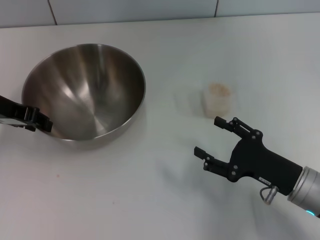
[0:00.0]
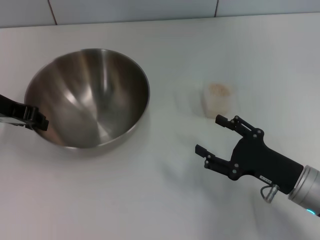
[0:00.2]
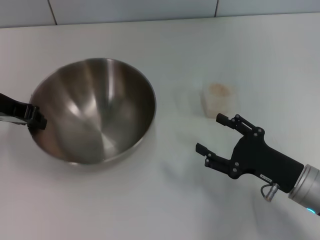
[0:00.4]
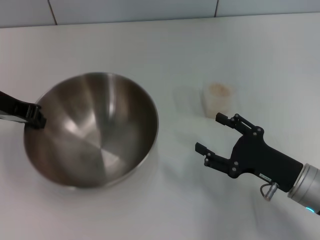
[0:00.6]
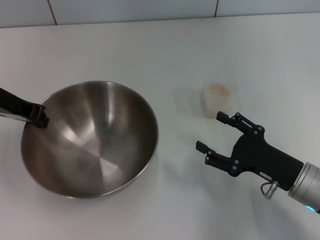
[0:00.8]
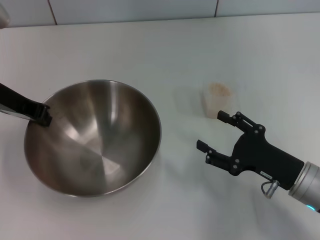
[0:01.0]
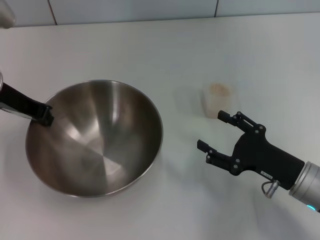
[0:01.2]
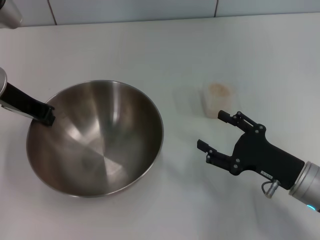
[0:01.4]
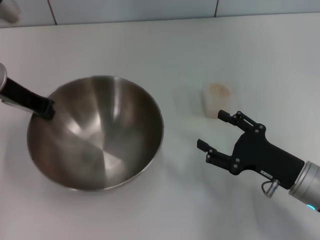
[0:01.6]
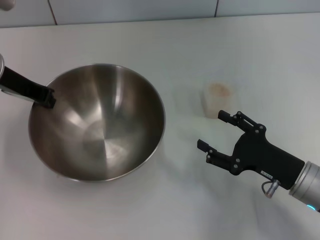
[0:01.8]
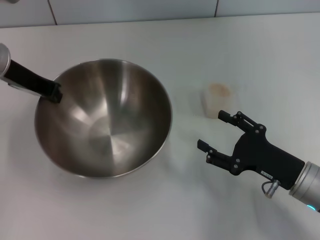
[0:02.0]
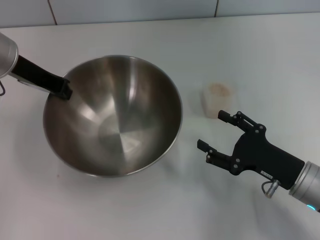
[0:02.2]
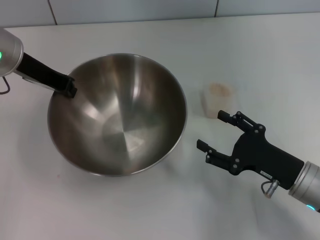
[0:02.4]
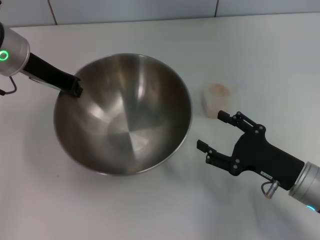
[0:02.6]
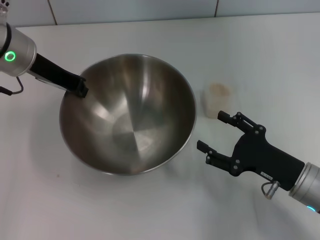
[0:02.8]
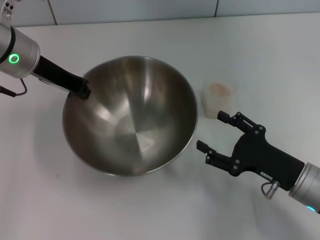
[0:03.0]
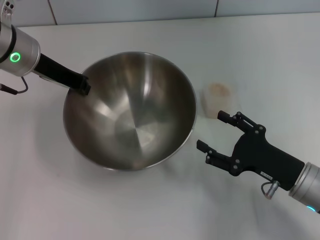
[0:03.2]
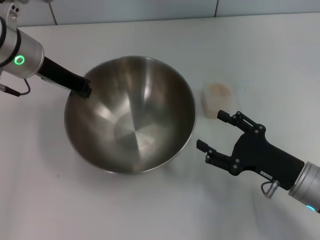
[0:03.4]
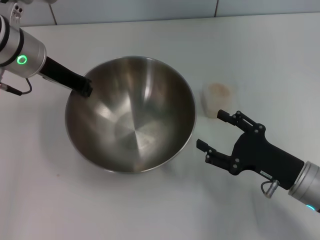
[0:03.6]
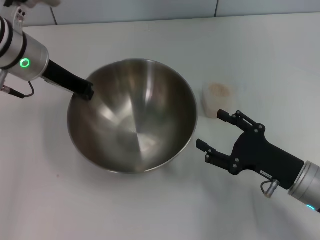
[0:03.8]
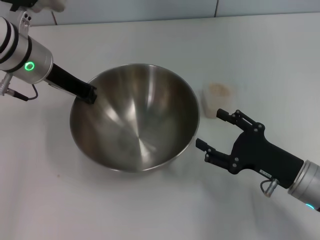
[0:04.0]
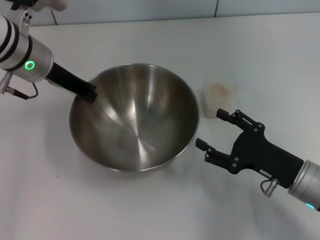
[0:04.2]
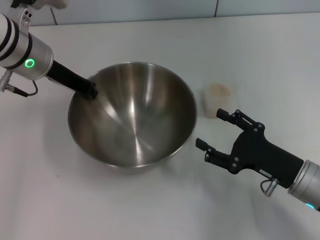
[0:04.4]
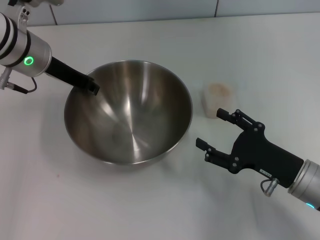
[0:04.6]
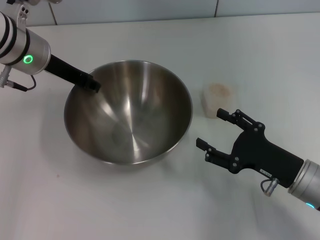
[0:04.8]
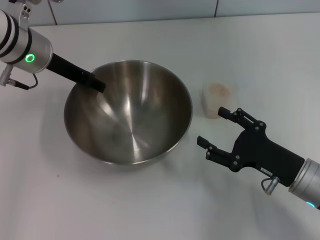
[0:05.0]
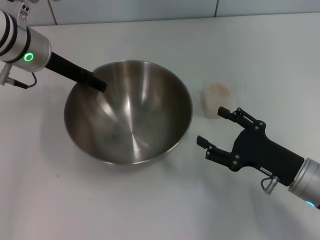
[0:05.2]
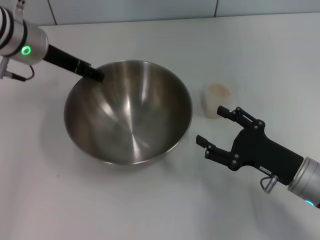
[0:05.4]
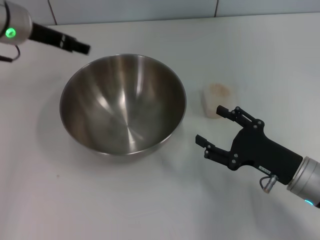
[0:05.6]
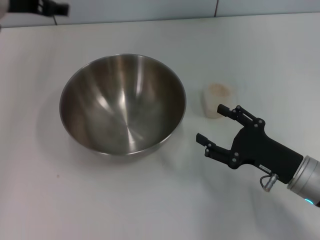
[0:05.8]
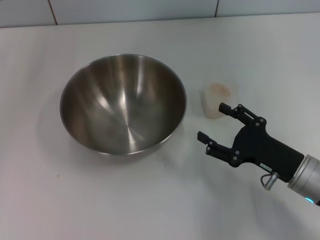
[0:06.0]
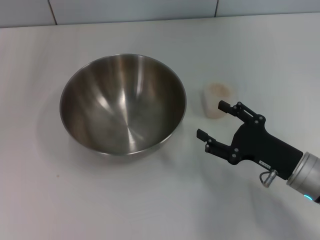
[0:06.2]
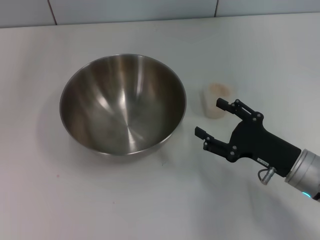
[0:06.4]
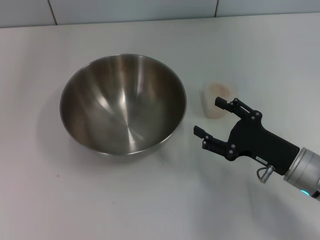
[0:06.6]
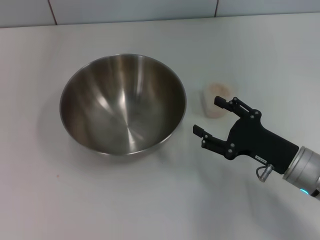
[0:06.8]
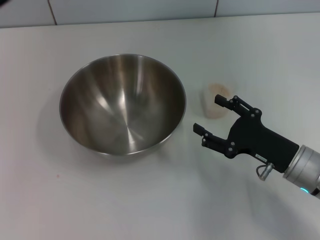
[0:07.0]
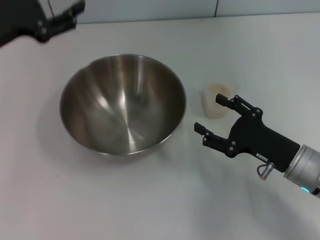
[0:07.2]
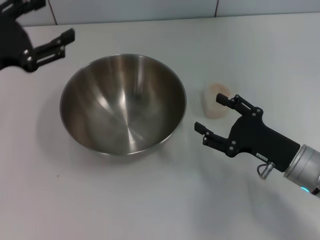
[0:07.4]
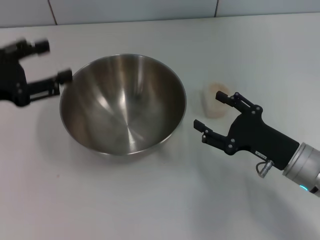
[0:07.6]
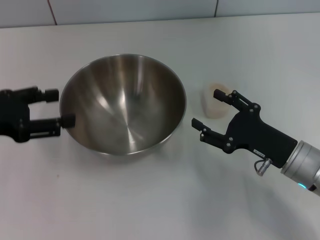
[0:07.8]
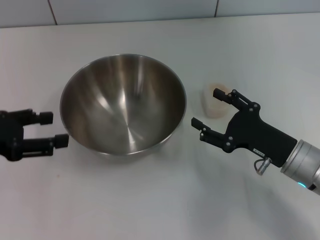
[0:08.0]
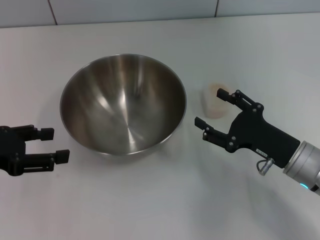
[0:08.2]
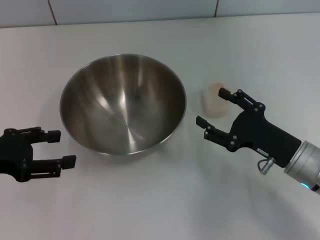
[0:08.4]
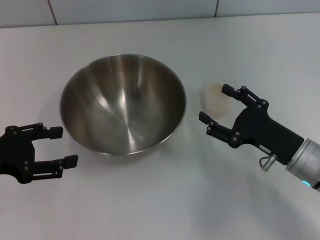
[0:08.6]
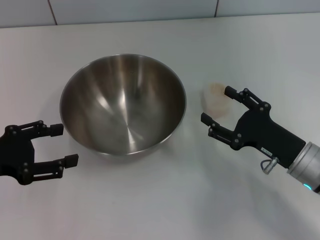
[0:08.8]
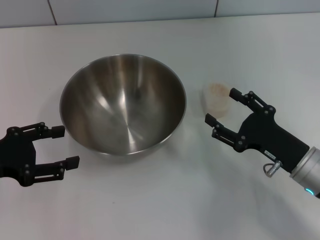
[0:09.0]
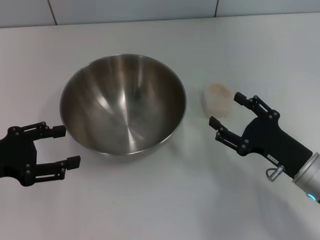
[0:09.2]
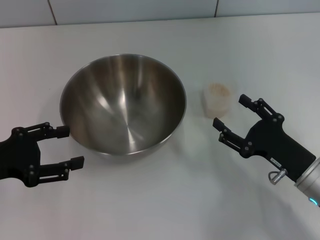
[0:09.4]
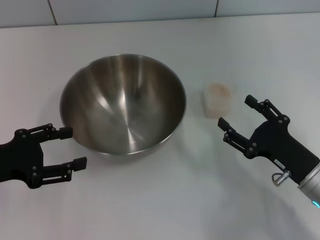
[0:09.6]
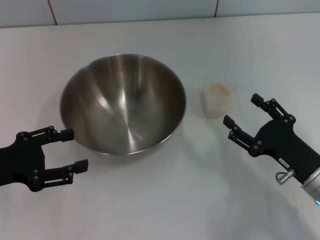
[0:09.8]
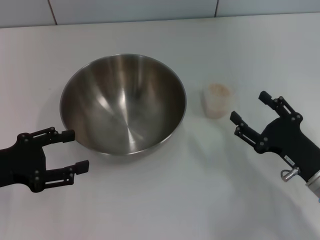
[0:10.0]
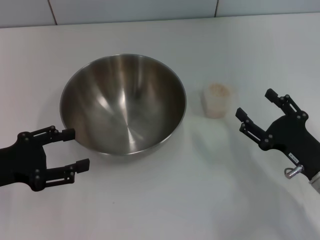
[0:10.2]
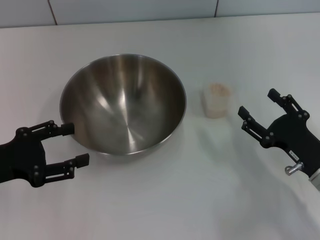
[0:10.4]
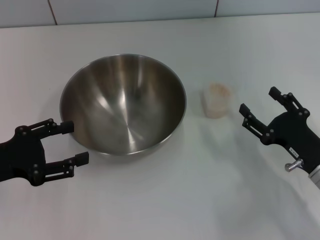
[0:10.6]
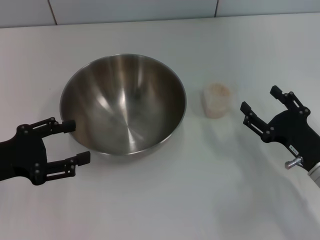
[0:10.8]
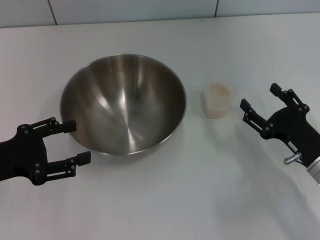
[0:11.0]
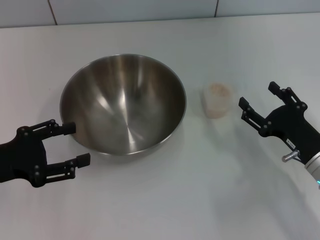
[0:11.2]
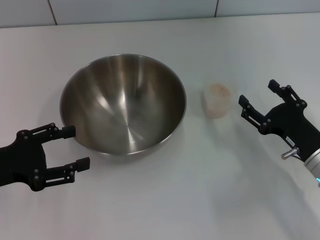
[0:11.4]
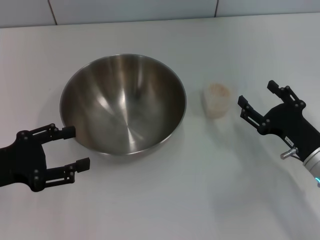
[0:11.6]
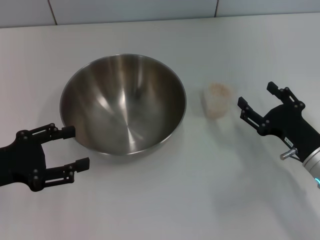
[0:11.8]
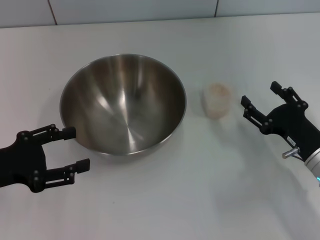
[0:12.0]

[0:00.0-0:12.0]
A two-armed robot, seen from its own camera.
Task of the whole recording: Place the bowl in the middle of the table with one hand and pour the rice from the grain cup into it with the other hand.
Step, 0:00.0 to 0:02.0: Pick up the bowl with the left gripper.
Step, 0:02.2 to 0:05.6: Place the bowl in the center of view with the left gripper.
0:00.0 to 0:01.6: The left gripper closes up.
0:03.0 to 0:04.4: The grippers move only a little.
0:04.4 to 0:06.0: The left gripper goes approximately 5 cm to the left, and opens up.
0:06.0 to 0:07.6: The left gripper travels backward, to the left and downward by some 15 cm.
0:07.6 to 0:09.0: The left gripper changes place by some 5 cm.
0:09.0 to 0:12.0: The grippers make only small movements.

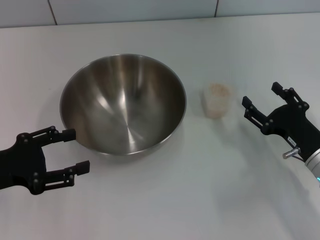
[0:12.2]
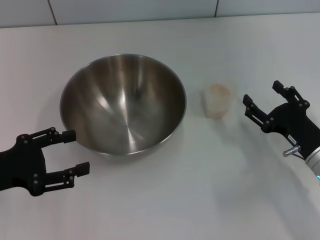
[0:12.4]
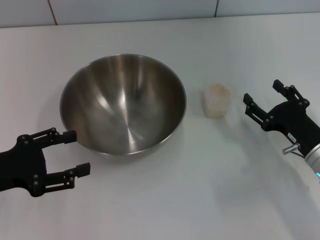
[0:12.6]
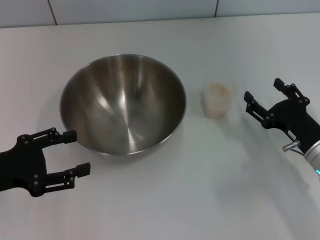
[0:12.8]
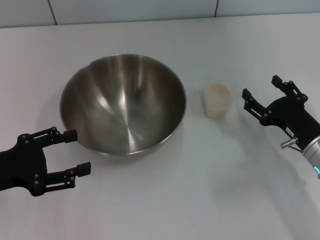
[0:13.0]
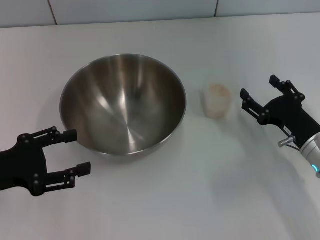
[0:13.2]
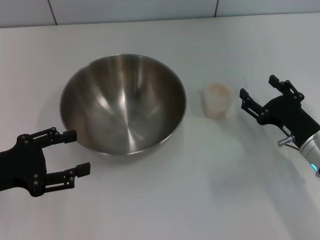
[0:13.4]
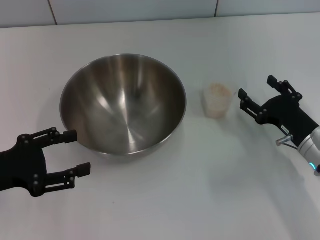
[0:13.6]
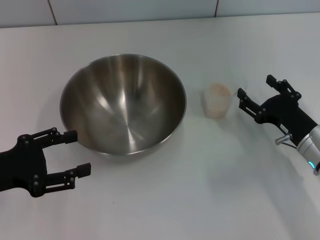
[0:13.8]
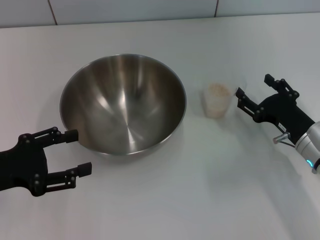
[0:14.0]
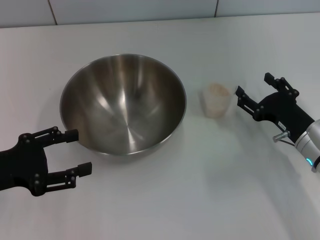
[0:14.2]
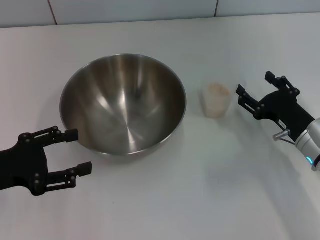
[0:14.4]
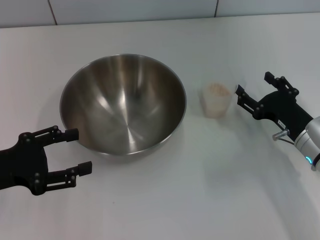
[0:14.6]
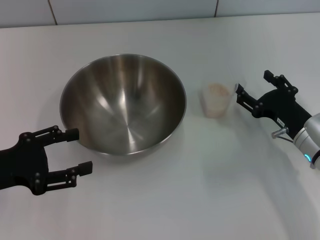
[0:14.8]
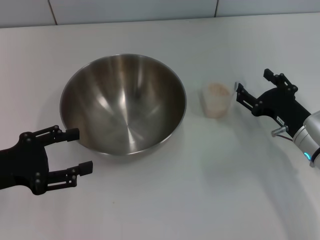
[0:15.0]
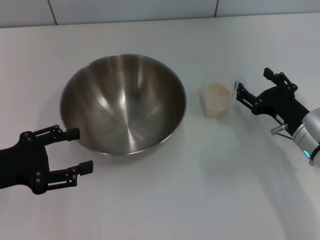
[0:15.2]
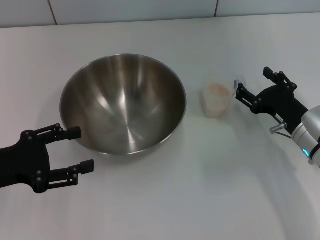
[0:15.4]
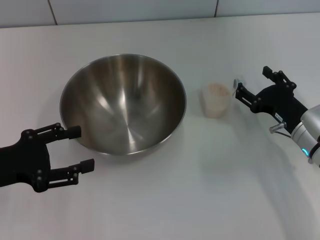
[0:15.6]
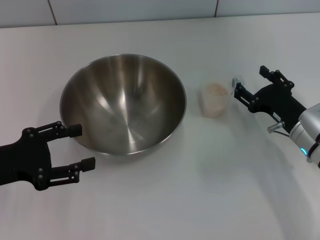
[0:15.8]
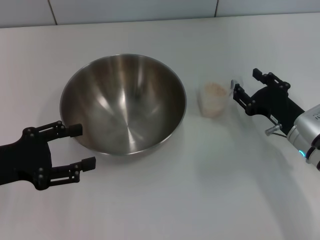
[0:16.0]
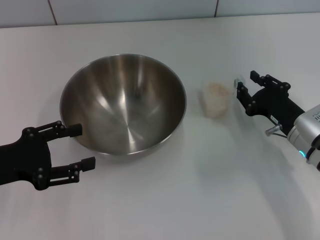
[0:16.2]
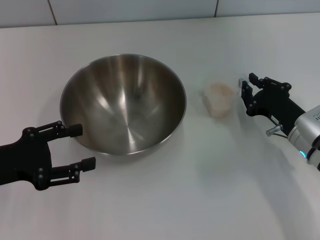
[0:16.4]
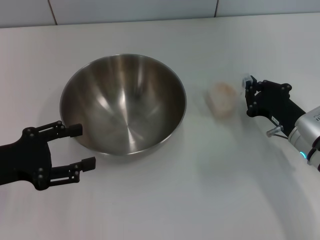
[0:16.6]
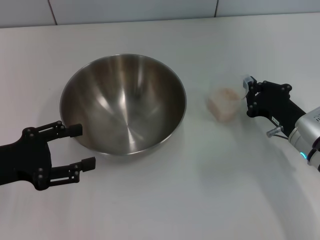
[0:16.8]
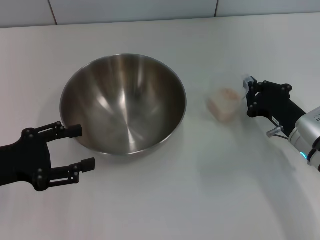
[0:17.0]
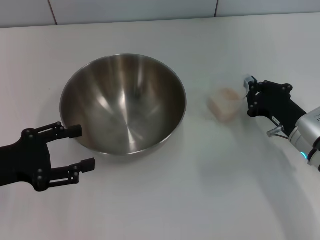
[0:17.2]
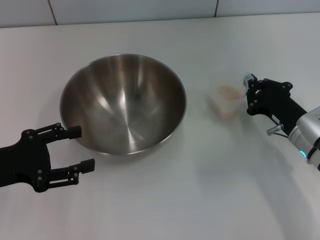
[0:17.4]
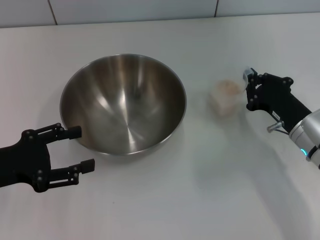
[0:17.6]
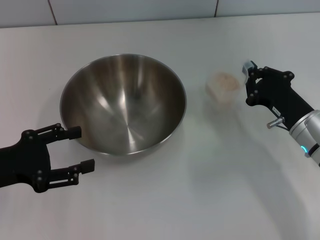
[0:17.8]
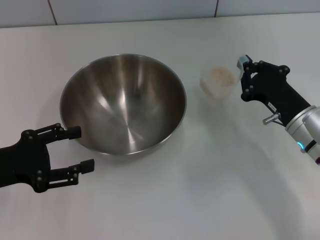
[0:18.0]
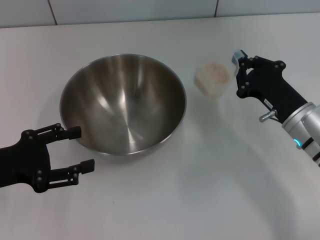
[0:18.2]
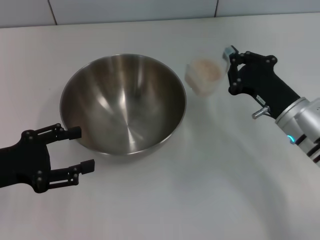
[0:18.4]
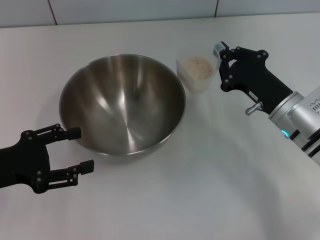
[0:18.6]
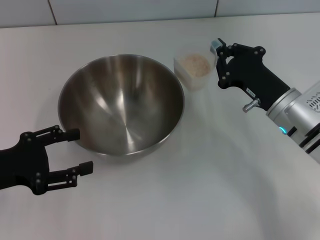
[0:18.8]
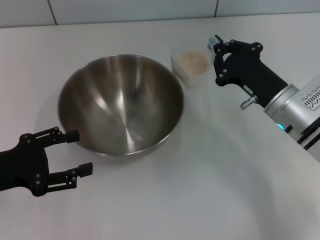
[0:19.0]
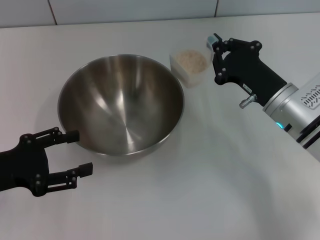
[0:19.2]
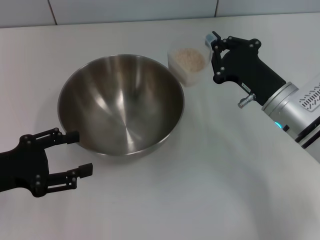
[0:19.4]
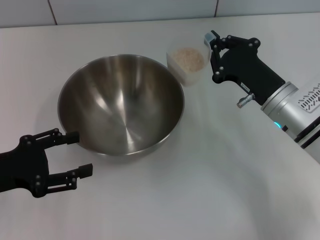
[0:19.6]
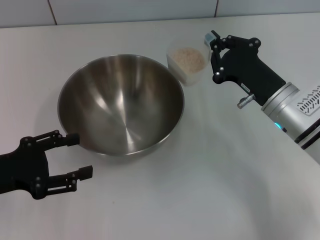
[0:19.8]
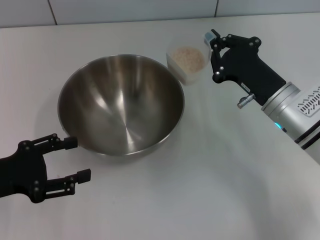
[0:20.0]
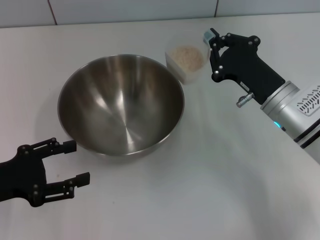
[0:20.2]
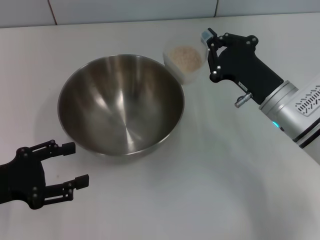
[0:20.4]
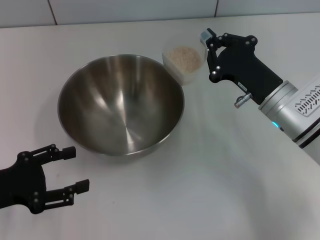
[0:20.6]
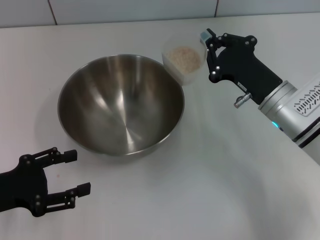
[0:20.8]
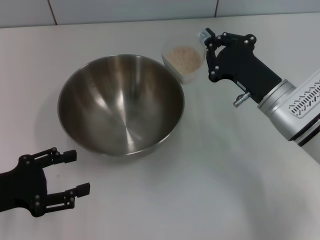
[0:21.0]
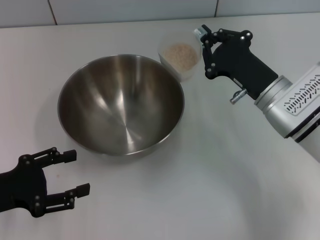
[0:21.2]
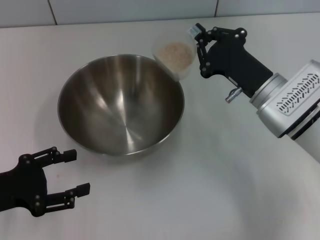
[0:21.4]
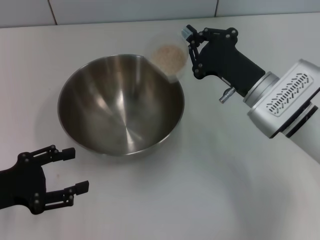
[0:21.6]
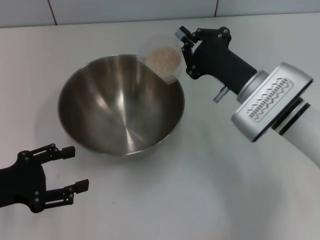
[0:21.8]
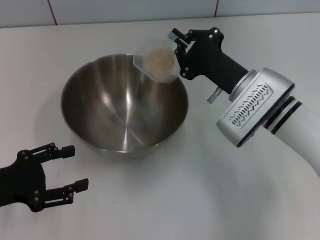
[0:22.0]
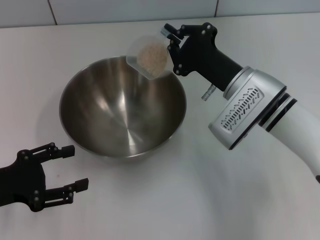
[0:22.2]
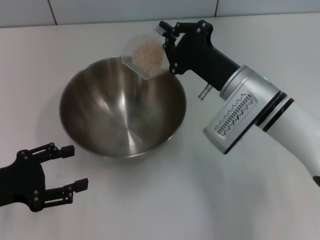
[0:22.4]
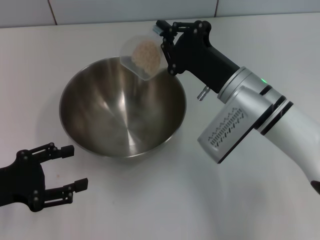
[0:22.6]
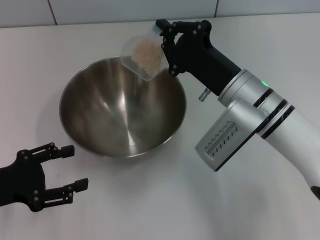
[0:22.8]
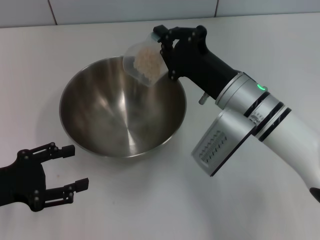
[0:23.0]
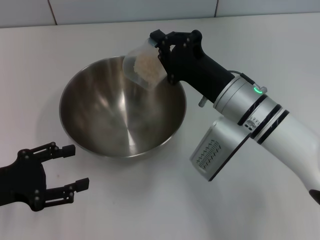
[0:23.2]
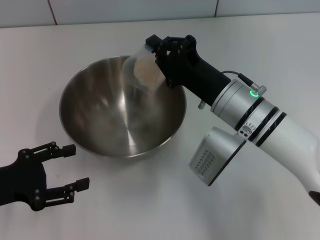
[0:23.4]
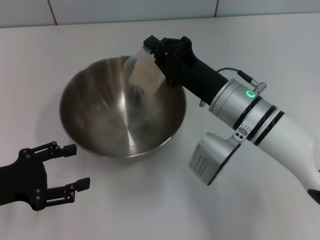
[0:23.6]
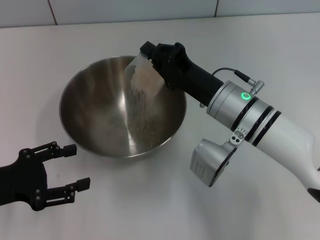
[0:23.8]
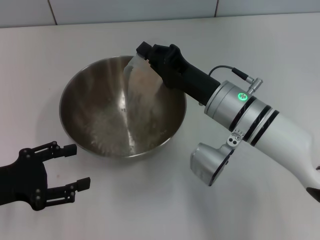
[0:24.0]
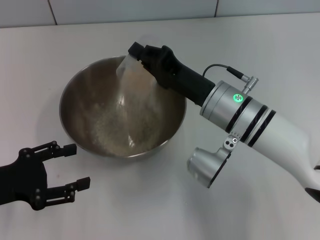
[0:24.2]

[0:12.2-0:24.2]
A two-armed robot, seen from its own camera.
Task of the whole recording: Place the bowl in the middle of the table with one hand and pour the rice from the grain cup into it with the other hand.
Step, 0:12.2 to 0:18.4: Pick up the cup with rice in it with the right gripper.
0:12.2 to 0:15.2: The grippers make only small movements.
0:15.2 to 0:16.6: The right gripper closes up.
0:16.6 to 0:18.2: The grippers stay close to where they were, moving slightly.
0:18.2 to 0:21.2: The grippers move only a little.
0:21.2 to 0:22.6: The right gripper goes about 5 cm to the left.
